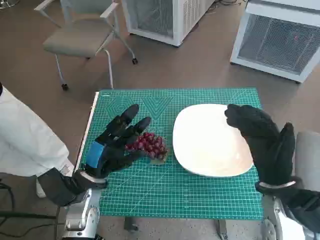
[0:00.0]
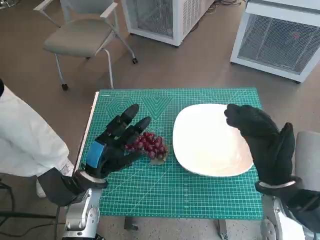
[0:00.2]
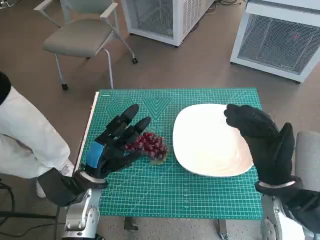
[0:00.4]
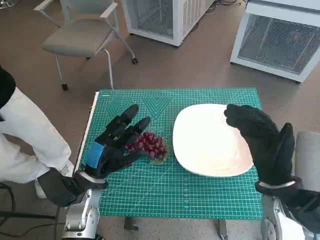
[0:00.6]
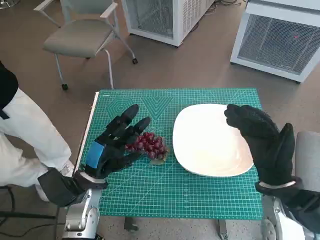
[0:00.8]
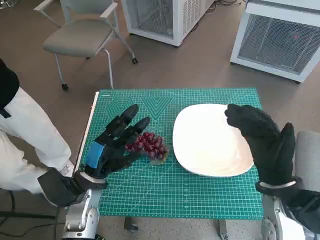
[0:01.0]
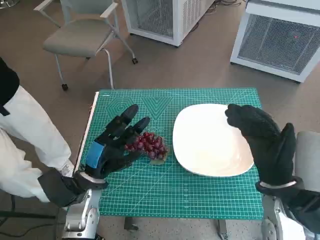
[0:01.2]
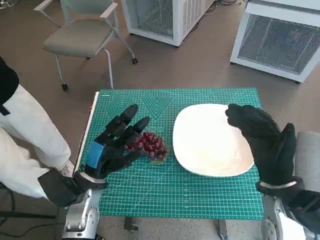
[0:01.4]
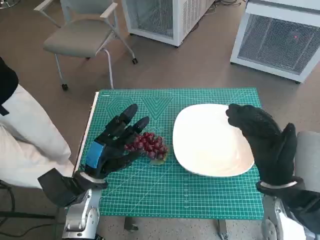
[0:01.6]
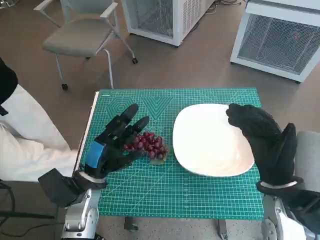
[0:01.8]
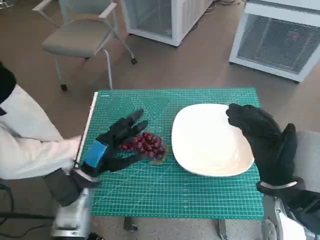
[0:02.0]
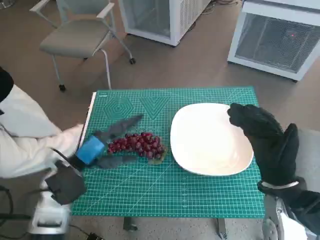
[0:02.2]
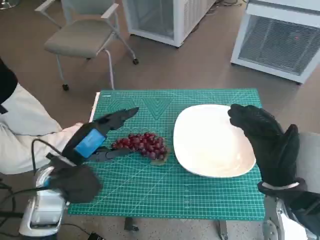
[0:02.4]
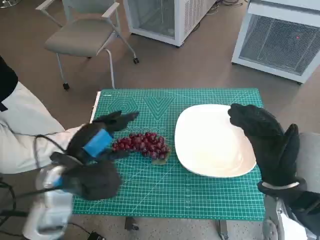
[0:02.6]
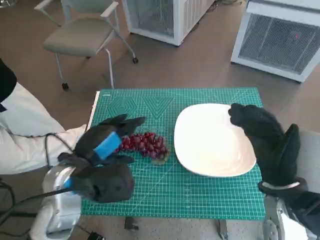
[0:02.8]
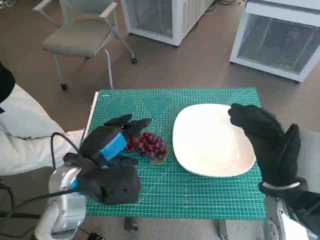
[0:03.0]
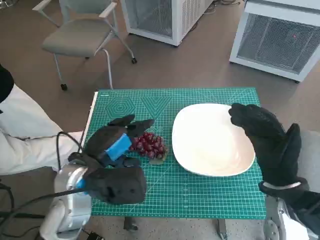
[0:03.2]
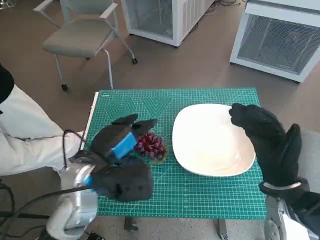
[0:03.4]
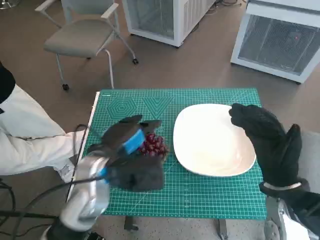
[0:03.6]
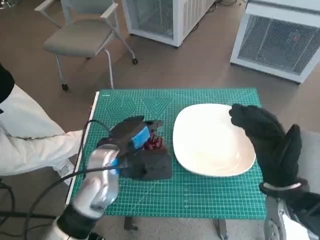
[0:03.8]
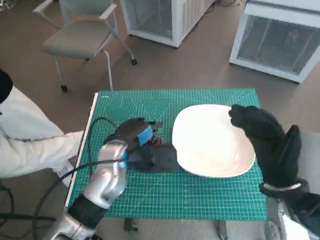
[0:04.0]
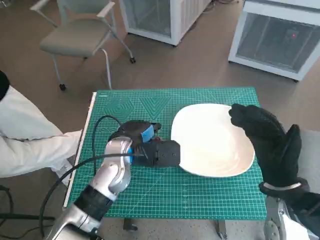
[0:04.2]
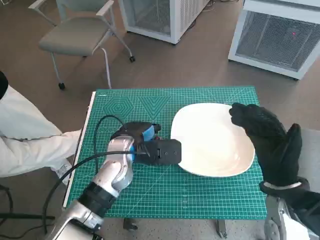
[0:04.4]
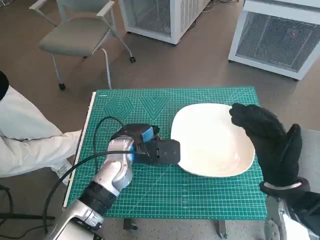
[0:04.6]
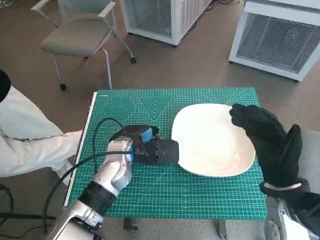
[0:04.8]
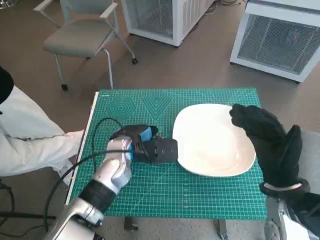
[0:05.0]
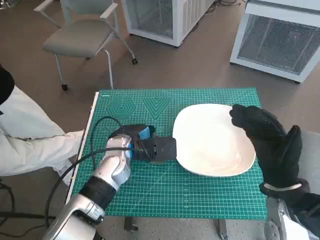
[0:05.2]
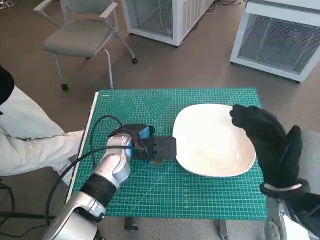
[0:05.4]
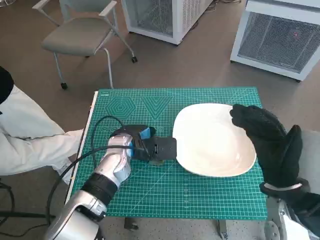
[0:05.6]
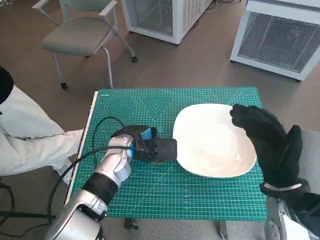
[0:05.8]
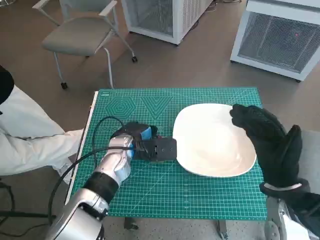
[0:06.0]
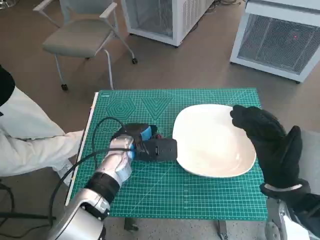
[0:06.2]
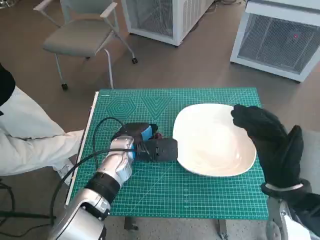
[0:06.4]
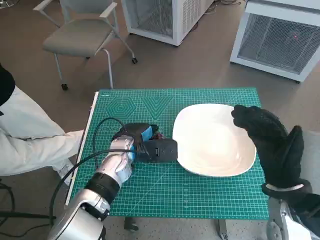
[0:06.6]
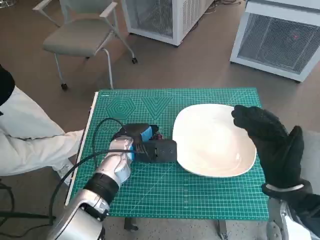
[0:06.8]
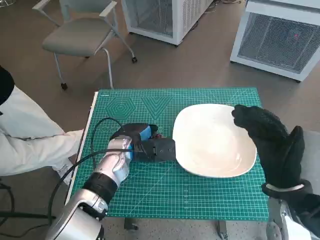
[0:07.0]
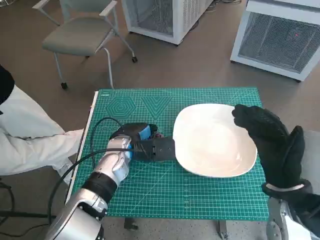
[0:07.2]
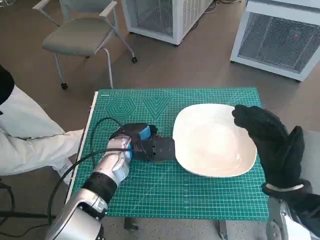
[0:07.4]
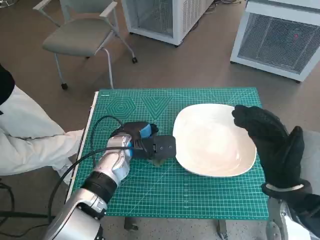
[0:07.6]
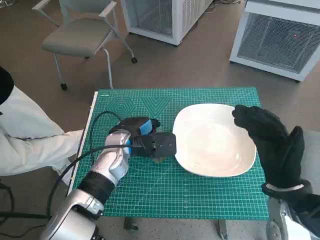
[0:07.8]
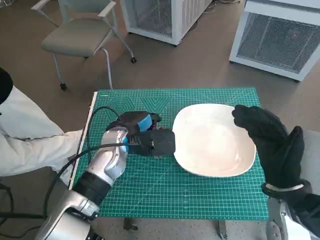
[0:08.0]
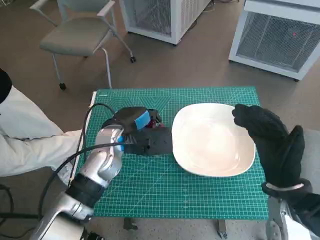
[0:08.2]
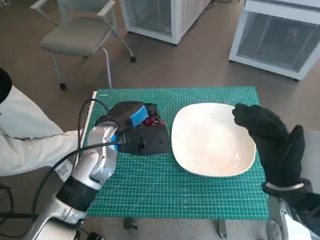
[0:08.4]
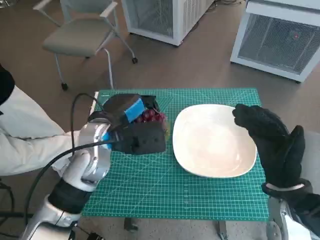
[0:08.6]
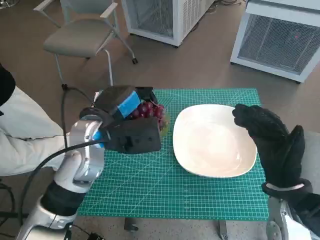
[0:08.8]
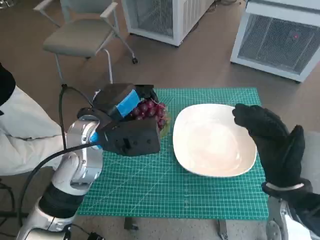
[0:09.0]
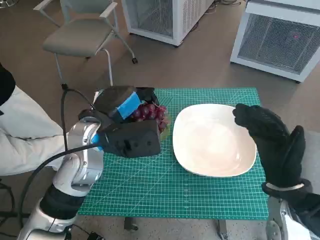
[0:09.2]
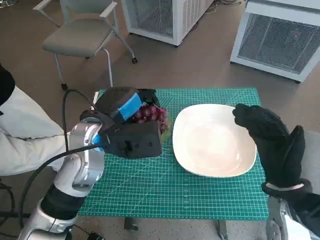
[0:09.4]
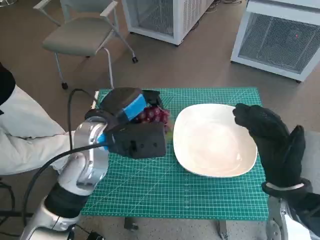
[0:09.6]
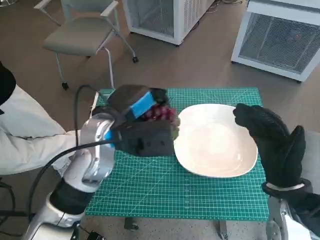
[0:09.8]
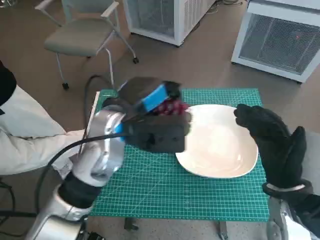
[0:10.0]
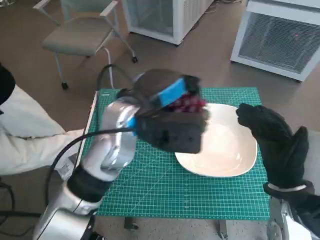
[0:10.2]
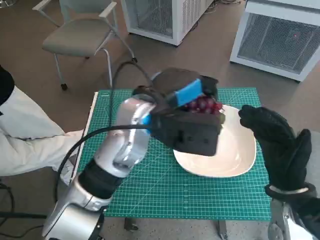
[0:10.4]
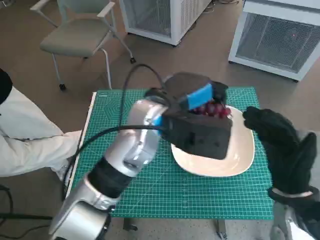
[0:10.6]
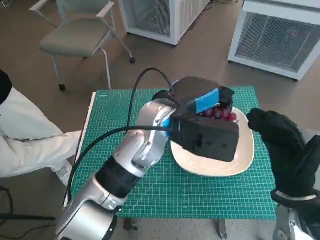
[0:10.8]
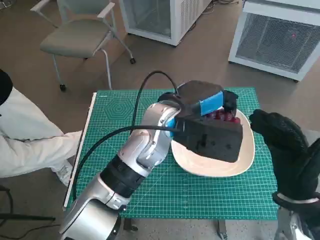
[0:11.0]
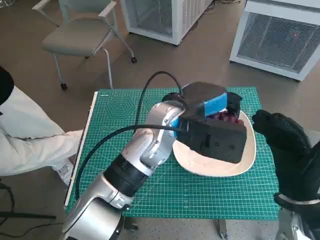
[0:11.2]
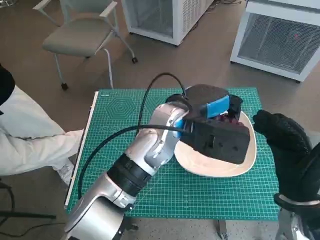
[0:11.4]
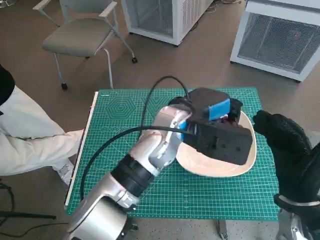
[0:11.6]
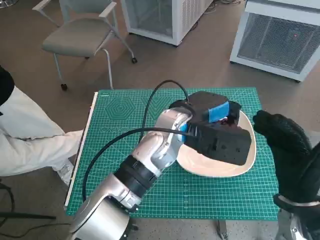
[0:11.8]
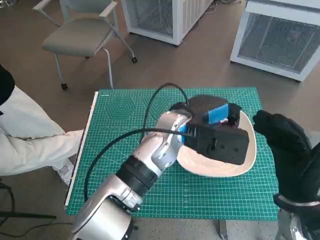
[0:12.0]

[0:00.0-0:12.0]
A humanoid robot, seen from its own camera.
Task of the whole recording: Pick up the grapes and put them on the plate.
Step, 0:00.0 to 0:07.0: Grasp the grapes with left hand.
0:01.6 to 0:03.0: The left hand moves upward, approximately 10 cm.
0:03.0 to 0:04.4: The left hand travels forward and to the right by roughly 10 cm.
0:04.4 to 0:07.6: The hands move only a little.
0:07.6 to 0:09.0: The left hand is displaced upward by some 10 cm.
0:09.0 to 0:10.4: The left hand shifts some 10 cm to the right.
0:10.4 to 0:12.0: The left hand is displaced to the right by approximately 5 cm.

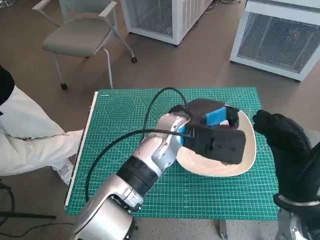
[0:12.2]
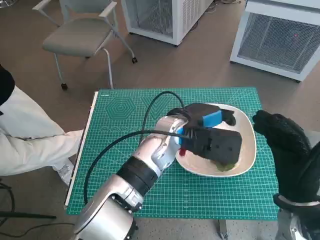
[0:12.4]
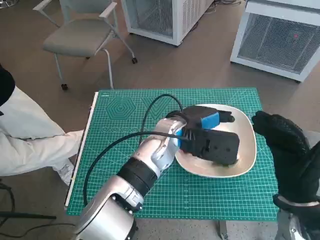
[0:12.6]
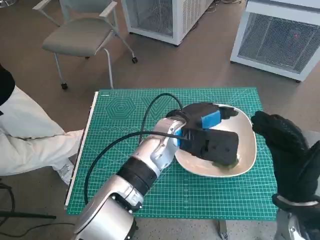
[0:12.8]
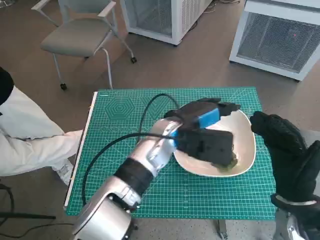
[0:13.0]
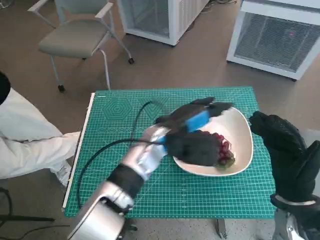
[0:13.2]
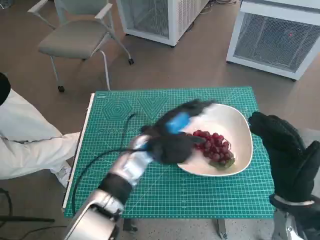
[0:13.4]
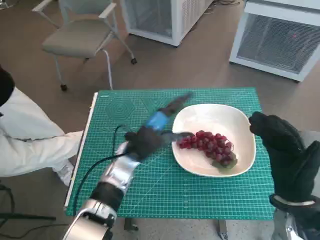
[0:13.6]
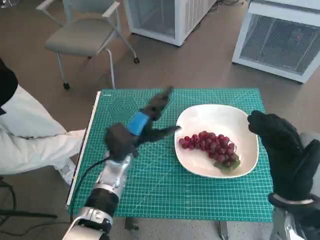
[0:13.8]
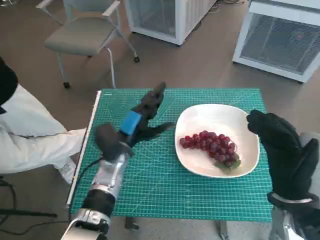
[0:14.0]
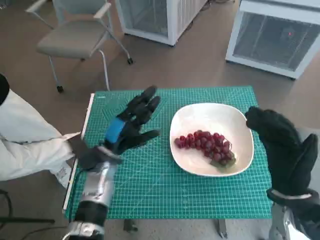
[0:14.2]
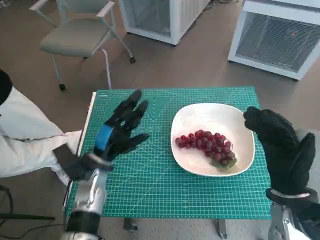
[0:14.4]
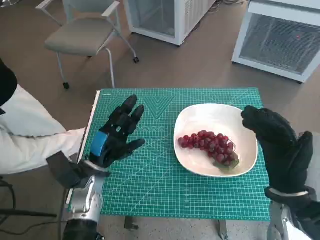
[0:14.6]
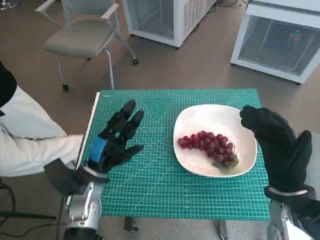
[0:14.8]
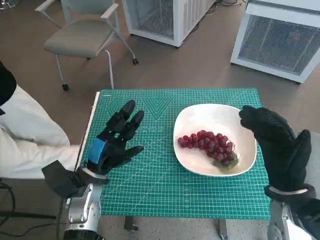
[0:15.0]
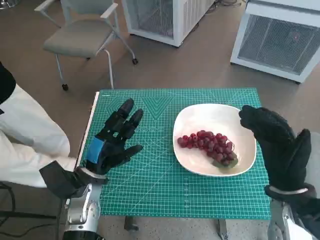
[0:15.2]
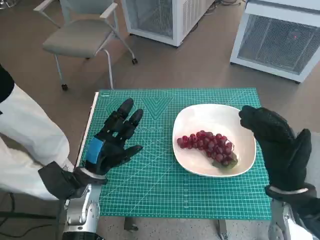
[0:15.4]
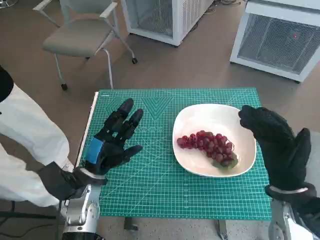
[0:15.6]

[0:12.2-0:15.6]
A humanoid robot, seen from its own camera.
Task of the whole recording: Pick up the grapes and put them on the plate.
0:12.2 to 0:13.8: The left hand moves to the left and downward, roughly 15 cm.
0:13.8 to 0:15.6: The left hand heads to the left and backward, covering some 10 cm.
